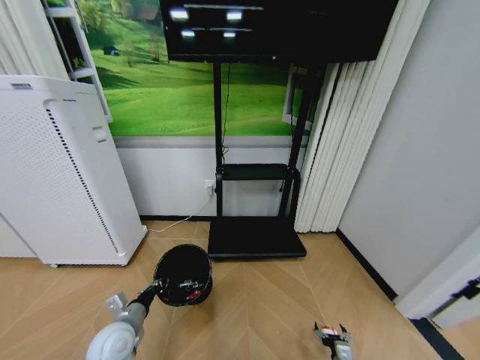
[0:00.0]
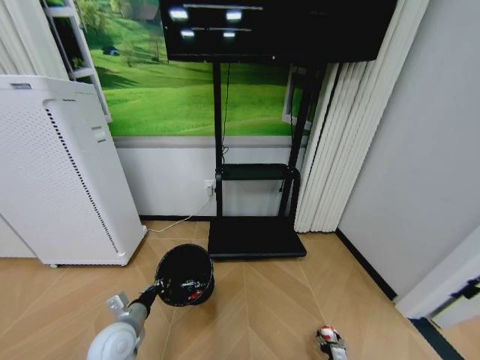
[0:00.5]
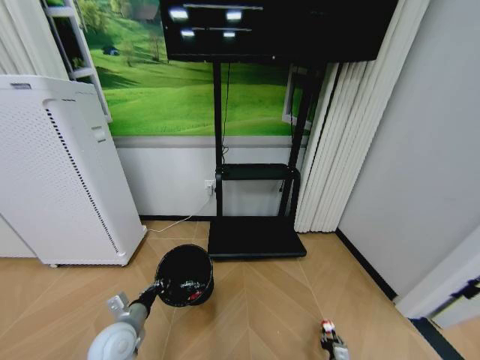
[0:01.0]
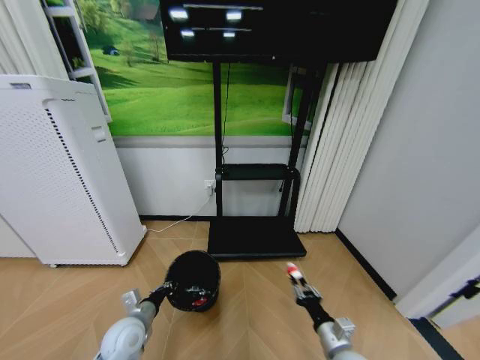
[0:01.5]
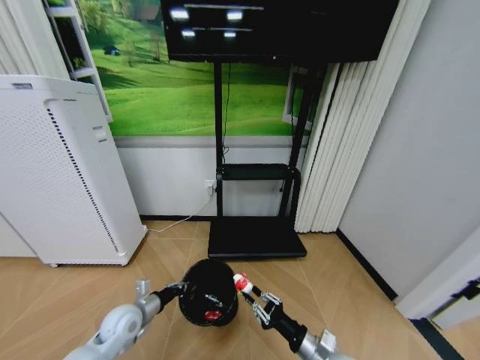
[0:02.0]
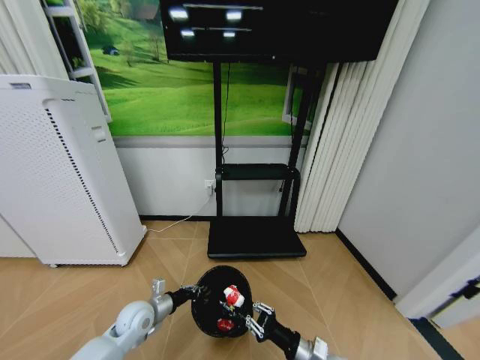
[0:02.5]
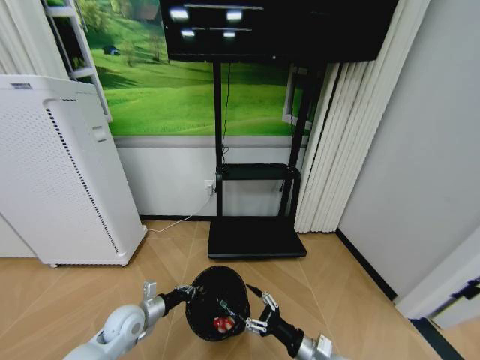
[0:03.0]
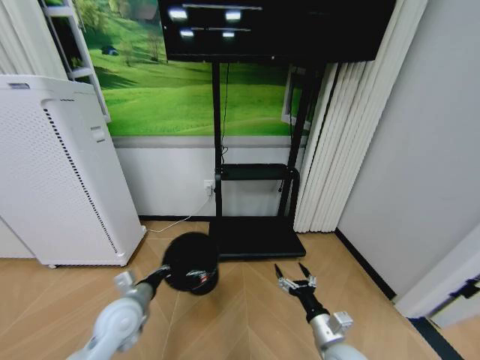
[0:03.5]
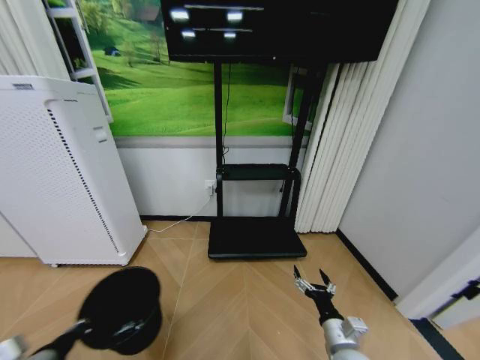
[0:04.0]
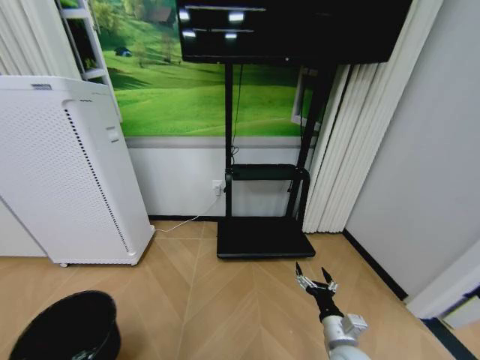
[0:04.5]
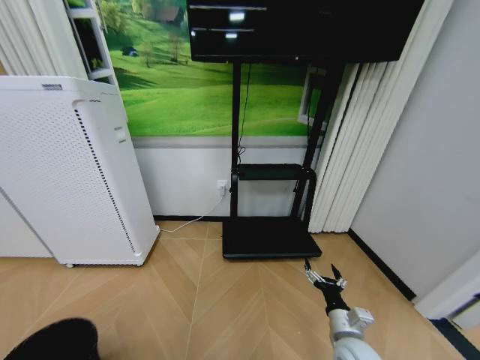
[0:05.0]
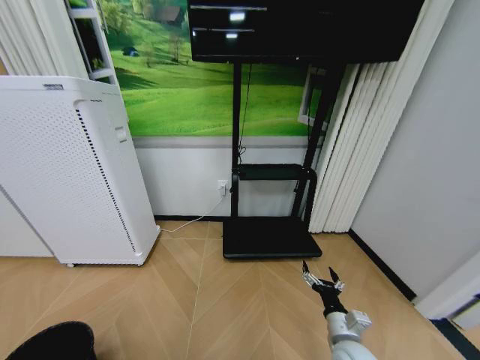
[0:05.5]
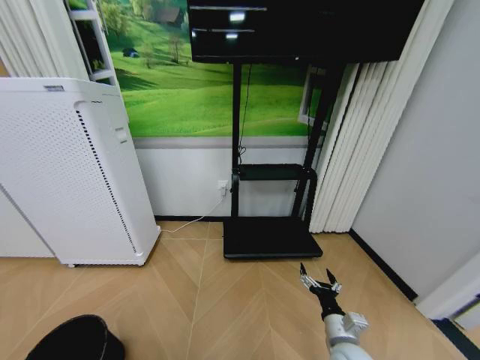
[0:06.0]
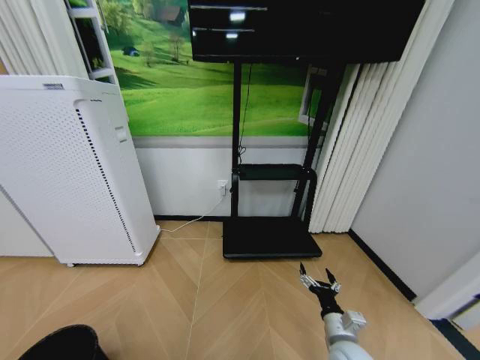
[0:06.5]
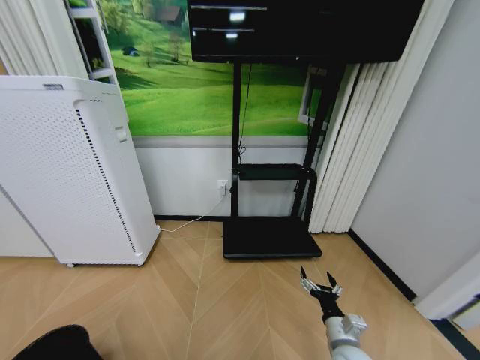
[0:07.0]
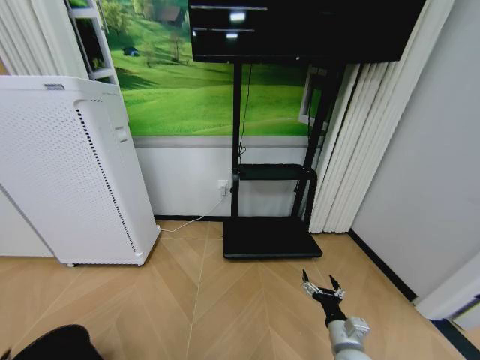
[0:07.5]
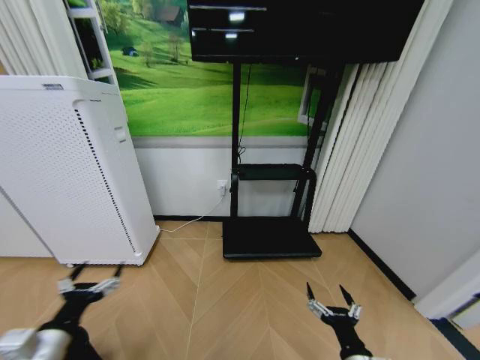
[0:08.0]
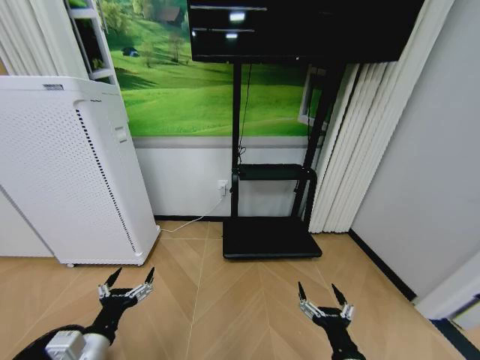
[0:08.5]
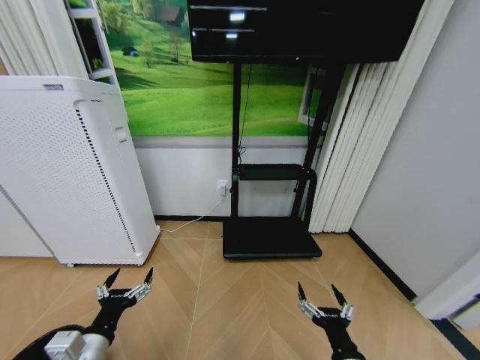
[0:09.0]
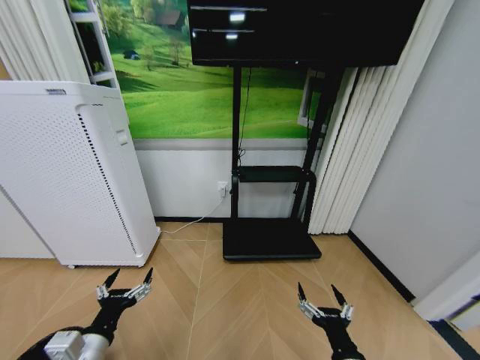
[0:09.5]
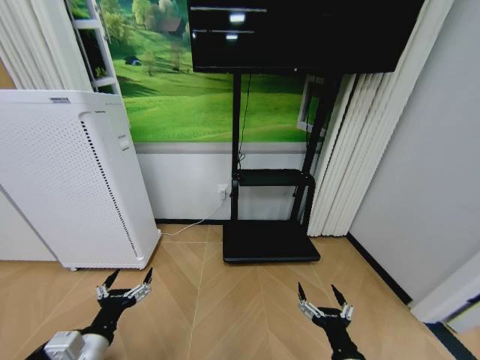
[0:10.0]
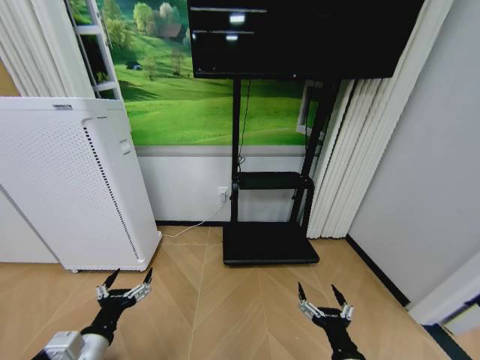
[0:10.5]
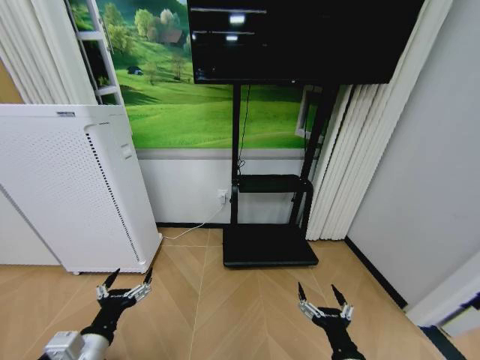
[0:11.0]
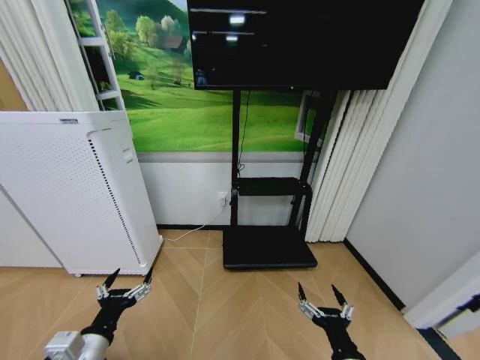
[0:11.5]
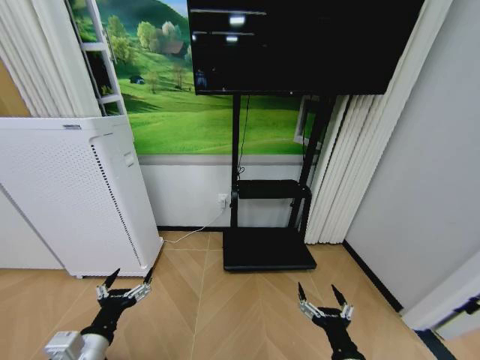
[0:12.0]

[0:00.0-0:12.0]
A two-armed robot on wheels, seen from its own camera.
Task of the whole recording: Pick up the trash bin and place the garbage on the floor into it.
0:00.0 to 0:02.0: The right gripper moves upward and to the left, about 25 cm, and closes its fingers; the left gripper moves roughly 5 cm.
0:02.0 to 0:04.0: The right gripper opens; the left gripper moves backward, upward and to the left, some 20 cm.
0:04.0 to 0:06.0: The left gripper goes approximately 20 cm downward, to the left and backward.
0:06.0 to 0:08.0: The left gripper heads upward, to the right and forward, covering about 20 cm, and opens, while the right gripper heads backward, covering roughly 10 cm.
0:08.0 to 0:10.0: The left gripper heads to the right, covering approximately 10 cm.
0:10.0 to 0:12.0: Both grippers stay about where they are.

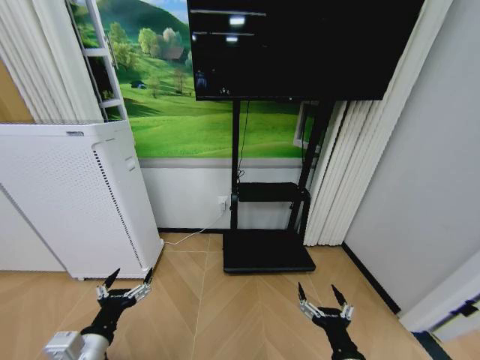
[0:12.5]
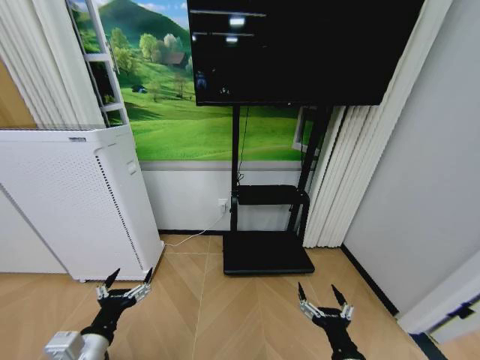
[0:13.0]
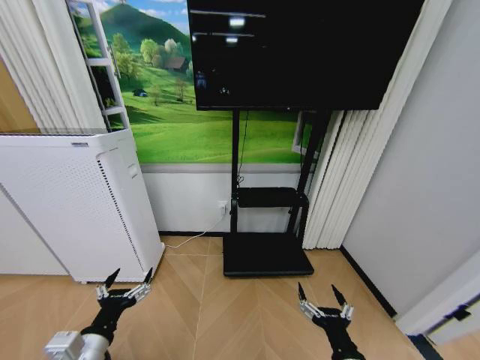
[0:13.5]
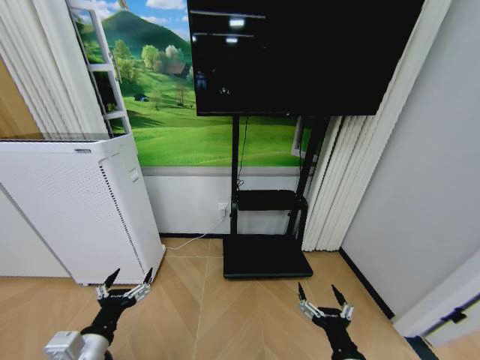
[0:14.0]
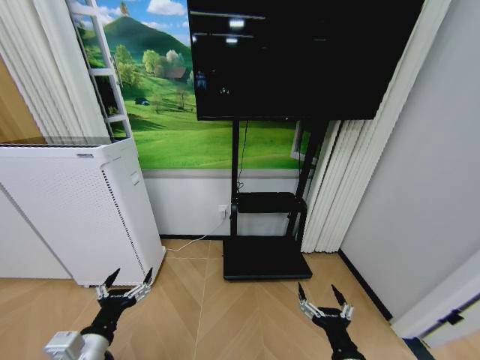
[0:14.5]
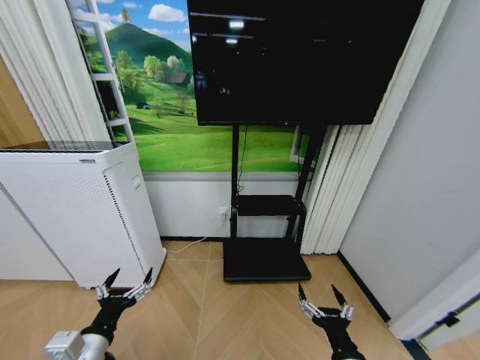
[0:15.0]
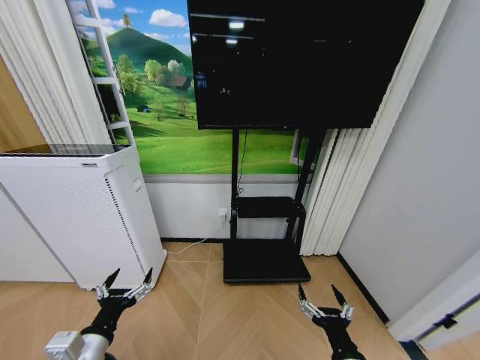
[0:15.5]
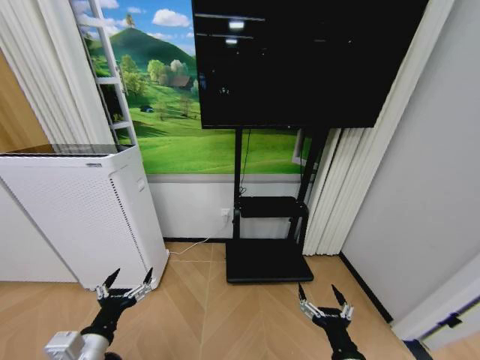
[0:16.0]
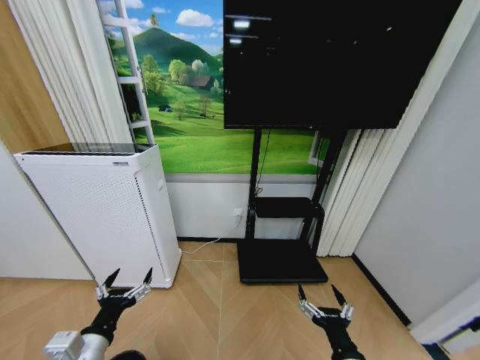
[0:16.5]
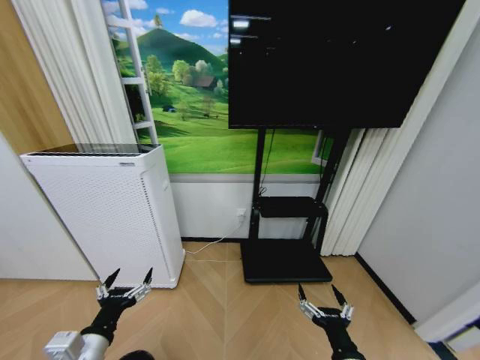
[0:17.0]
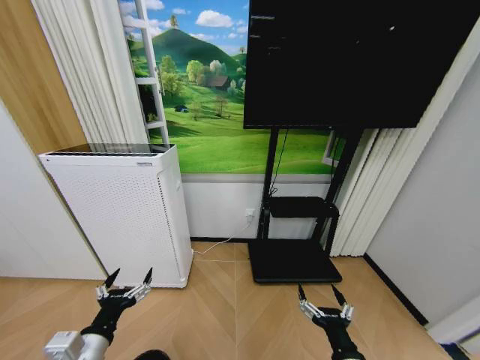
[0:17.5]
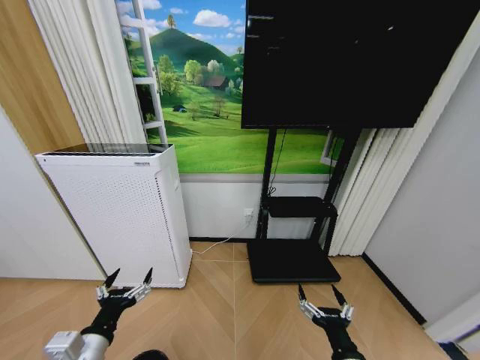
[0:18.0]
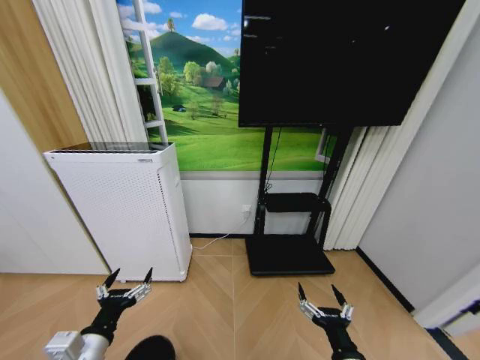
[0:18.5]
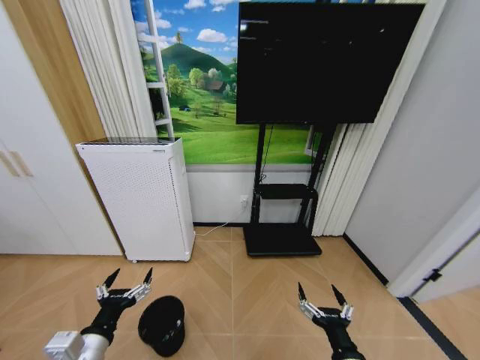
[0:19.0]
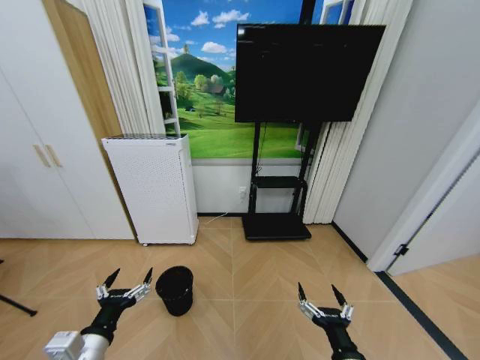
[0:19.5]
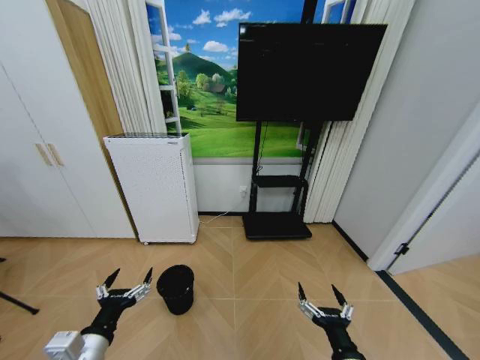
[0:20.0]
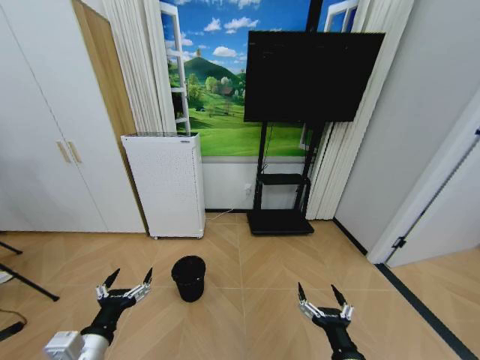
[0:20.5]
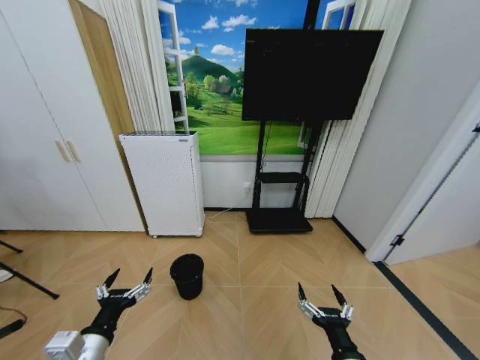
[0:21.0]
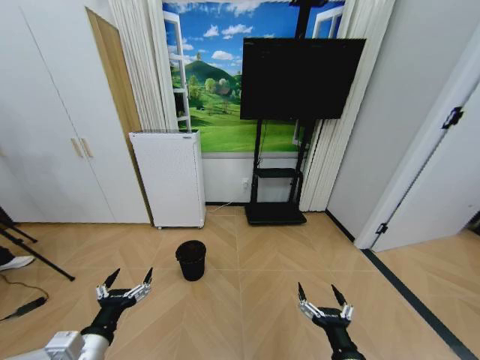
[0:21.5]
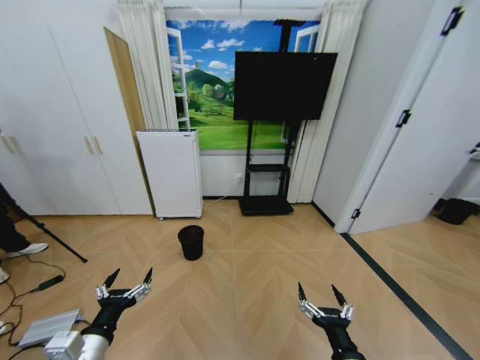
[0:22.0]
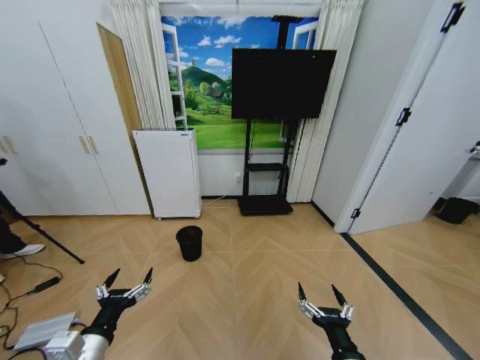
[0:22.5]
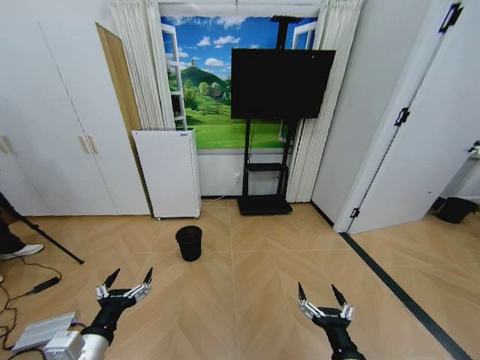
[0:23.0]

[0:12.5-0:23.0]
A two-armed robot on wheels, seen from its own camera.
Task of the whole recording: Pick up the trash bin and place the garbage on the floor into it.
0:12.5 to 0:14.5: The two grippers keep their place.

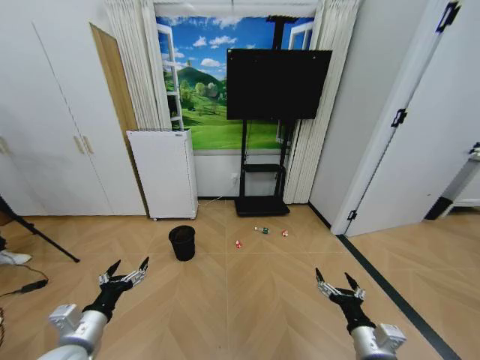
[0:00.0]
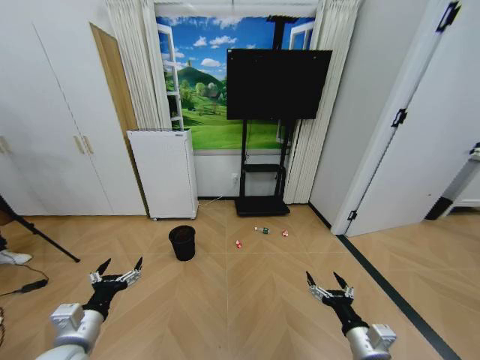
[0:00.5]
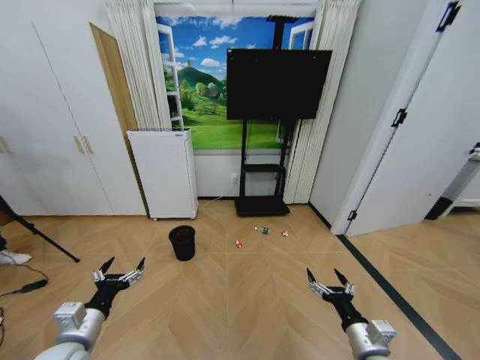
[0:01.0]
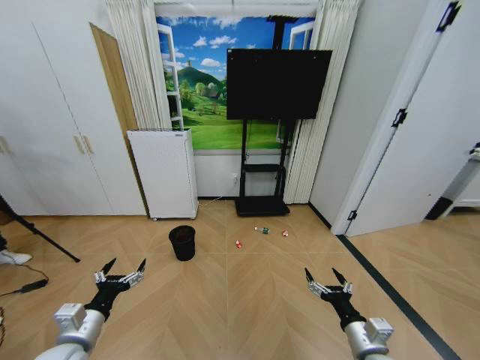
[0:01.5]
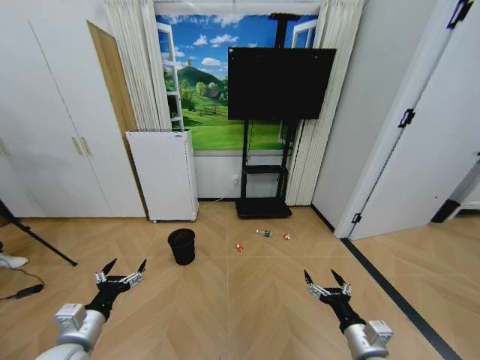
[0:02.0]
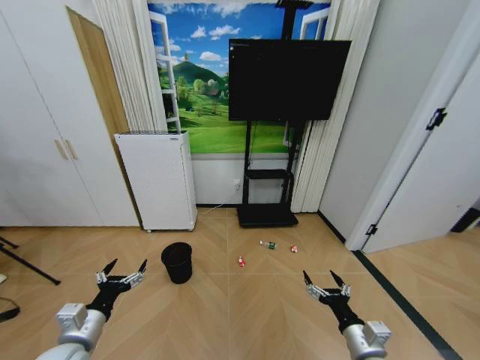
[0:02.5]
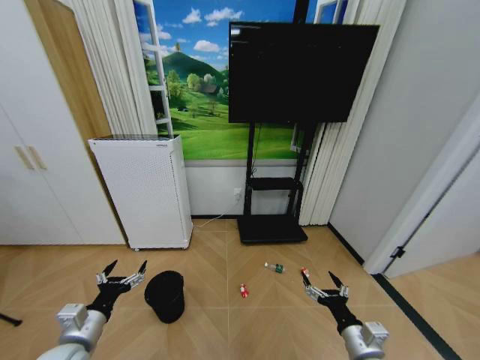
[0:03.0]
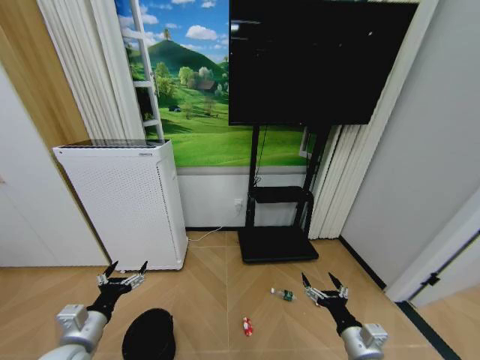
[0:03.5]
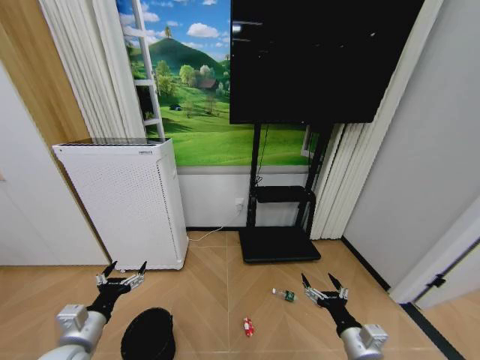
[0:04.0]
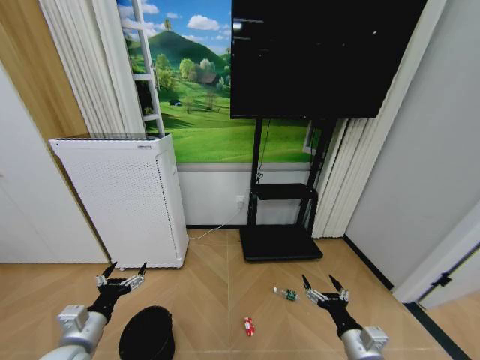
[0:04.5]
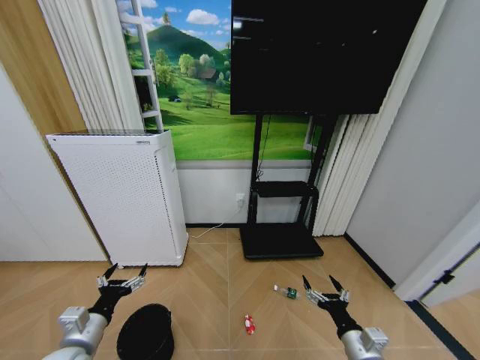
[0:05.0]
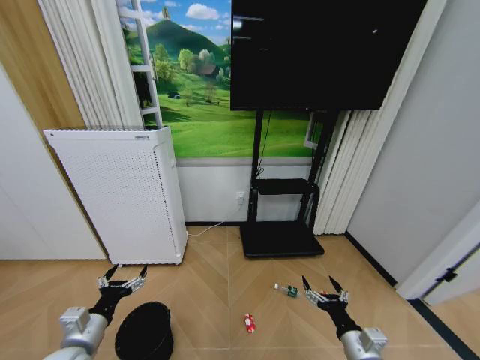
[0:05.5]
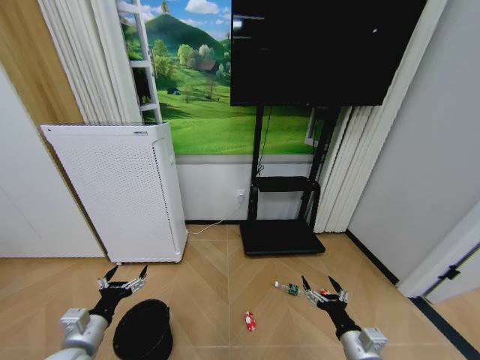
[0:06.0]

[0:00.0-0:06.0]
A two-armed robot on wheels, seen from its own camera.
Task of the whole recording: Pick up the trash bin and place the garbage on the floor into it.
0:04.0 to 0:06.0: The grippers stay close to where they were, moving slightly.
